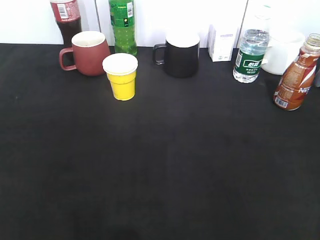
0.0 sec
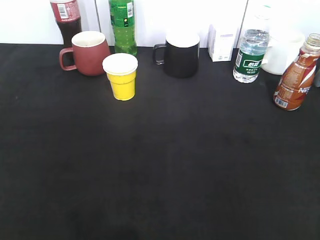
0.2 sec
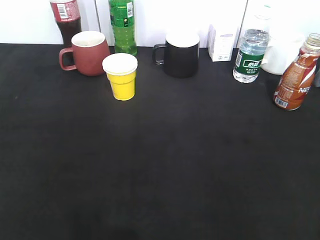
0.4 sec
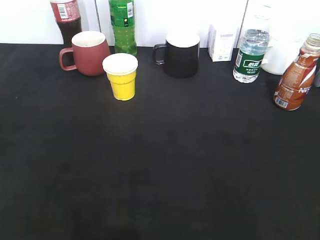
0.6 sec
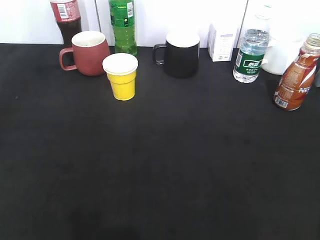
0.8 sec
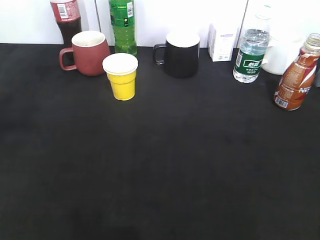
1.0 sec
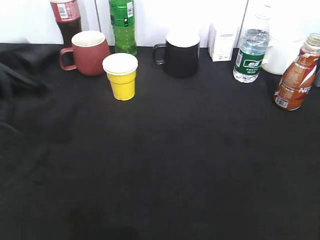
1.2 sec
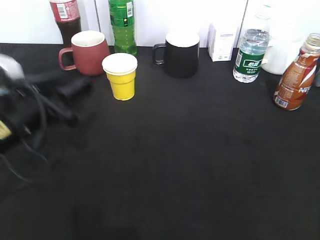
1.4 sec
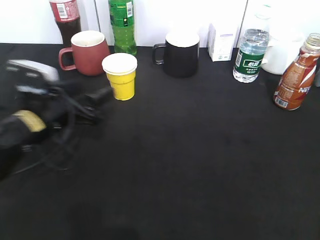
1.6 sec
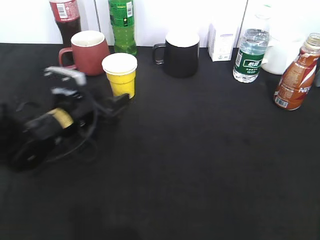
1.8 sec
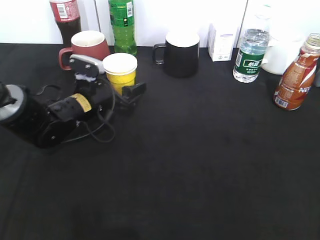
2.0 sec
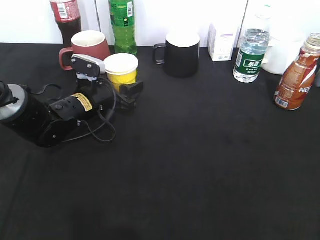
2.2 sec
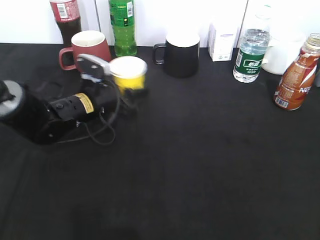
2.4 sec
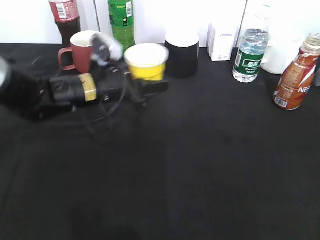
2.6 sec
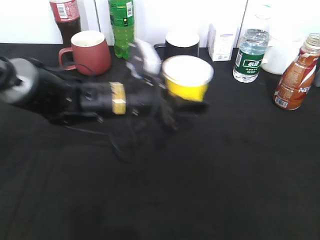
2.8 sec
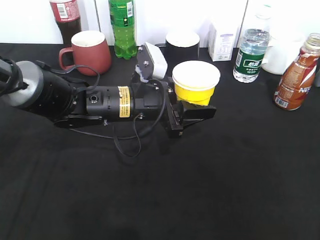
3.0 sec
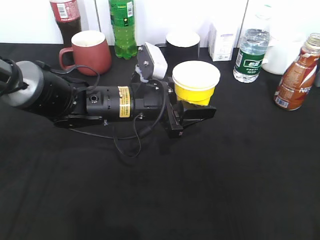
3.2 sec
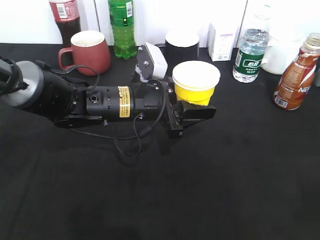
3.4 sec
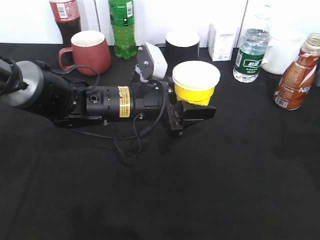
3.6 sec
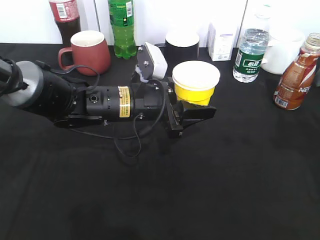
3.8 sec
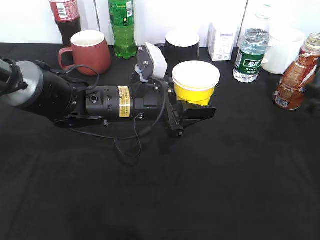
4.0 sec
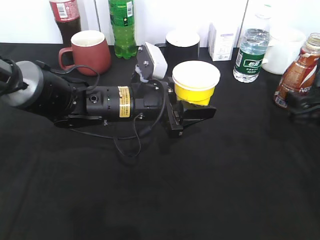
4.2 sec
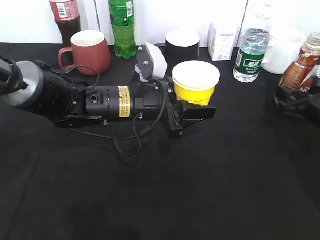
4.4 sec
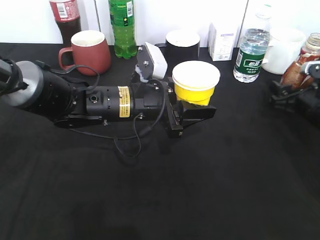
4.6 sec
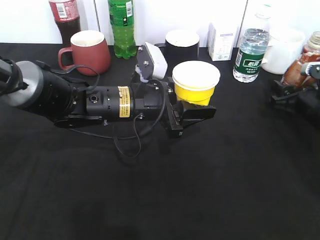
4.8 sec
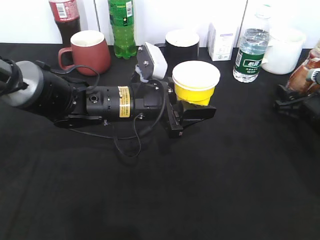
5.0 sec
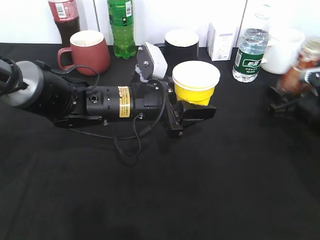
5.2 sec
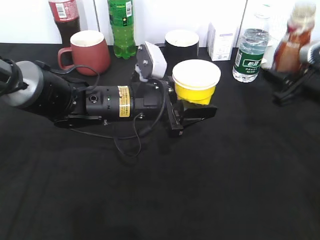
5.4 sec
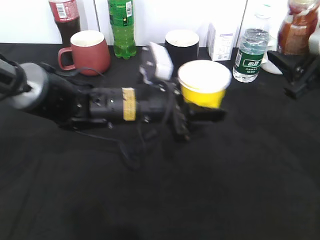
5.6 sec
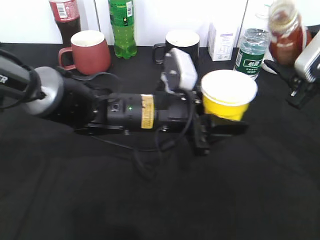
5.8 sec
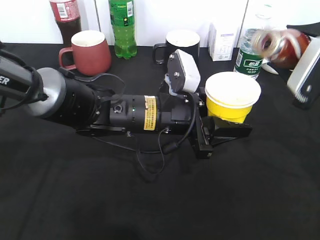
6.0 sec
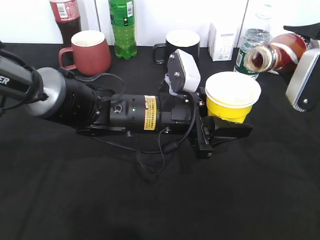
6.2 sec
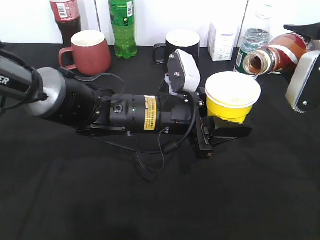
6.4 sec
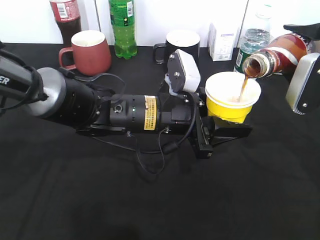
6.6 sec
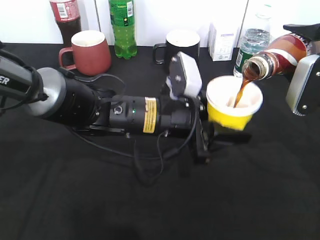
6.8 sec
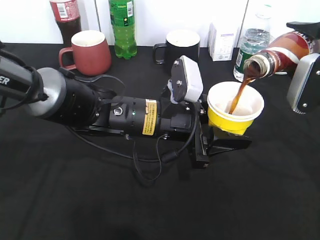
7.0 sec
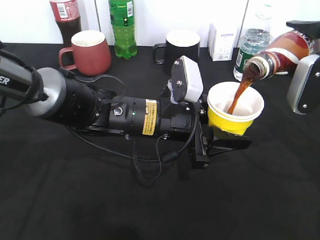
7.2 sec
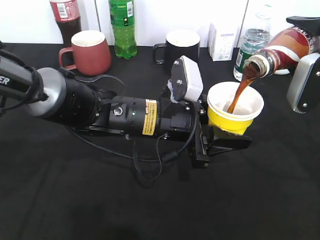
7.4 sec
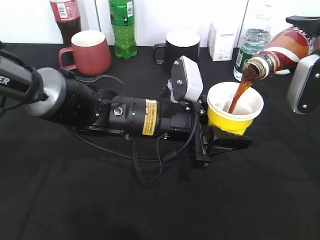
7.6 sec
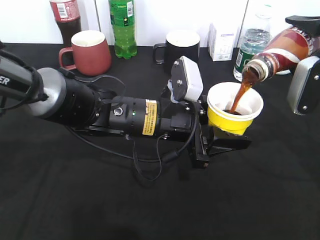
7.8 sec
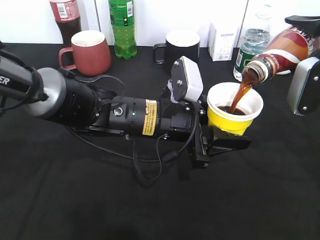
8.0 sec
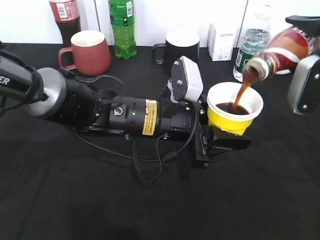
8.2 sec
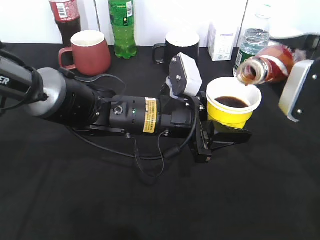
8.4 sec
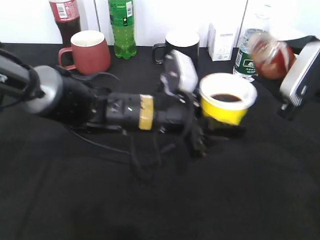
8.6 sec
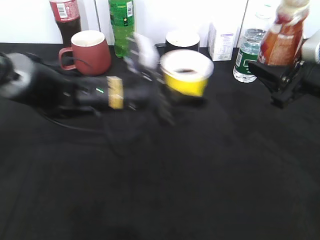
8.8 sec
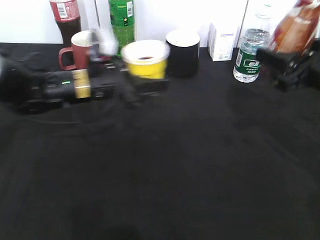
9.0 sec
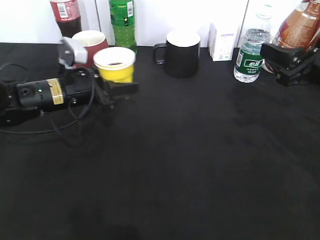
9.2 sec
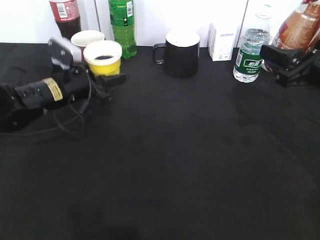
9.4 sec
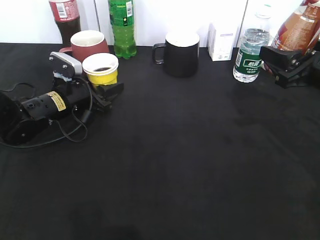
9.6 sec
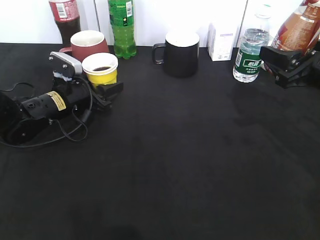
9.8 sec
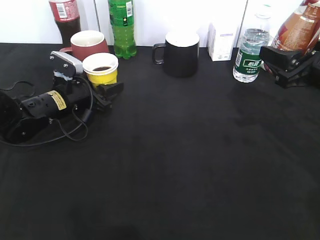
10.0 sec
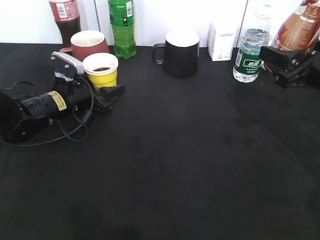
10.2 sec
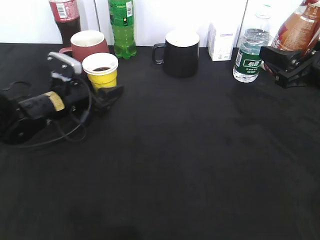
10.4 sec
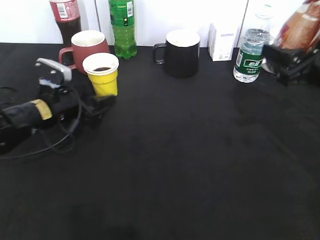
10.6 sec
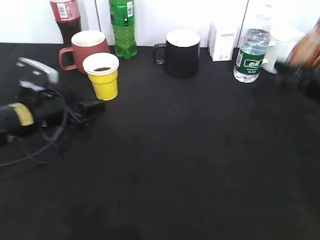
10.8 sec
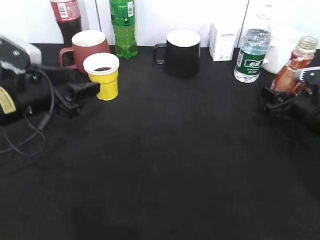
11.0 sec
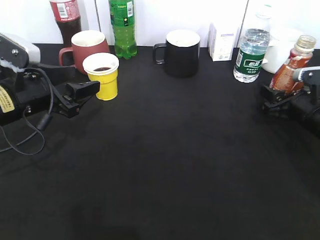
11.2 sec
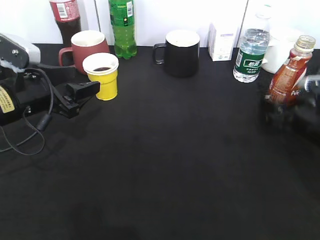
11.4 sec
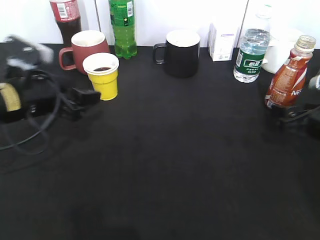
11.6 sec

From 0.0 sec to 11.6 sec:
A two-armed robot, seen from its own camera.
Step, from 1.2 sec to 2.2 sec: Grasp the yellow paper cup with left gripper.
Step, from 2.4 sec to 3.6 sec: Lift the yellow paper cup with left gripper.
Step, from 4.8 sec to 8.4 sec: Pour the coffee from bottle to cup with right gripper.
Step, from 8.6 sec to 10.0 sec: Place the yellow paper cup on the table with left gripper.
Step, from 10.4 sec to 11.2 sec: Place the coffee bottle on the table with right gripper.
From 0.0 sec to 1.4 sec: The left gripper travels forward, downward and to the right by approximately 30 cm, and opens up.
From 1.4 sec to 2.8 sec: The left gripper shifts roughly 15 cm to the right and forward, and opens, then closes once more.
From 2.8 sec to 4.4 sec: The right gripper shifts approximately 35 cm forward and downward, and opens its fingers.
From 4.4 sec to 5.8 sec: The left gripper changes place by roughly 5 cm, while the right gripper is displaced upward by roughly 10 cm, and closes its fingers.
From 7.2 sec to 8.8 sec: The left gripper goes approximately 10 cm forward and to the left.
From 8.8 sec to 10.2 sec: The left gripper heads to the left, downward and forward, covering about 15 cm.
From 10.2 sec to 11.6 sec: The right gripper is displaced downward by some 10 cm, and opens its fingers. Meanwhile the left gripper is displaced backward and upward by roughly 15 cm.

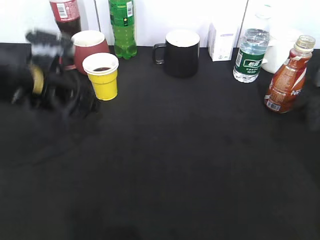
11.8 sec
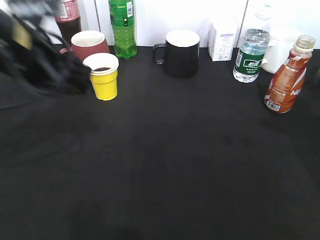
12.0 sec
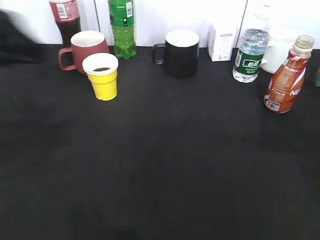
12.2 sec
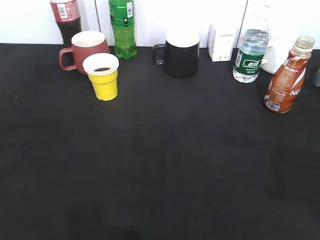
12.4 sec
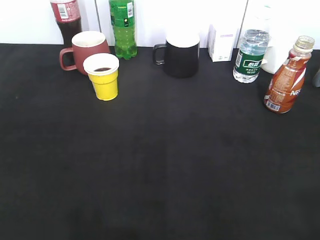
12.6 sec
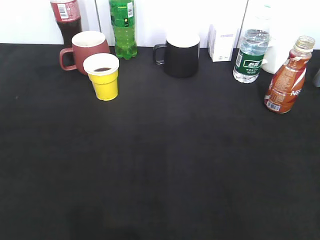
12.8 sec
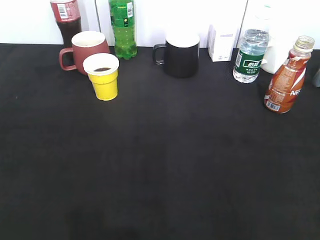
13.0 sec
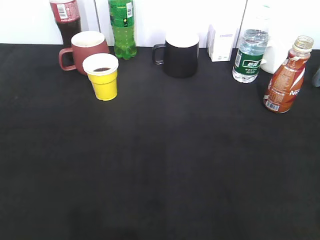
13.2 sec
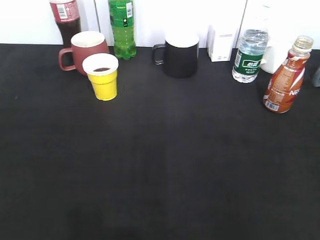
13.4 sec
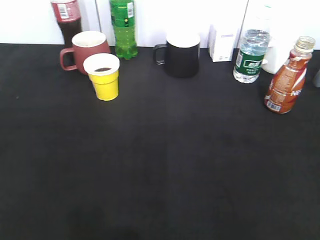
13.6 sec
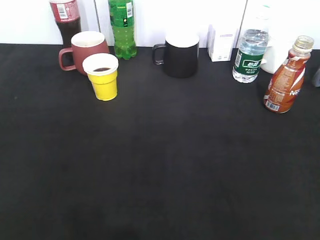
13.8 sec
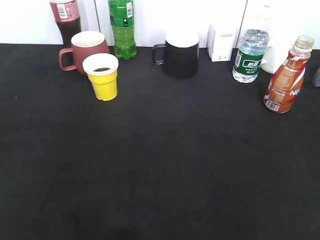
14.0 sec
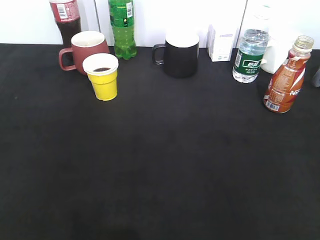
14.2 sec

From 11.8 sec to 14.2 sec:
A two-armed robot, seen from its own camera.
From 11.8 sec to 13.0 sec: The right gripper goes roughly 25 cm backward; the left gripper travels backward and to the left by about 30 cm.

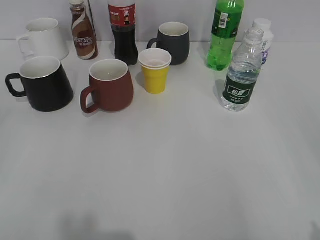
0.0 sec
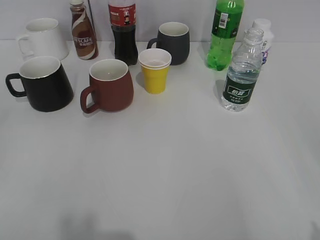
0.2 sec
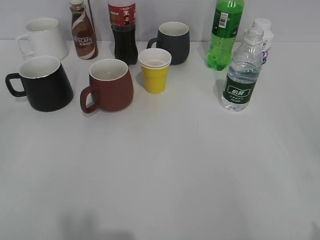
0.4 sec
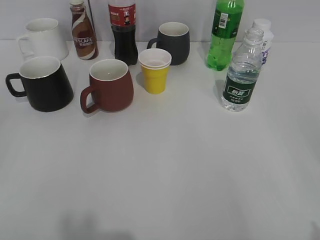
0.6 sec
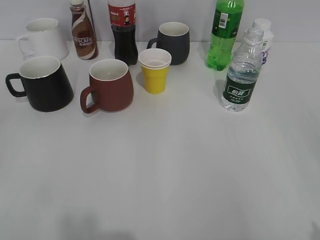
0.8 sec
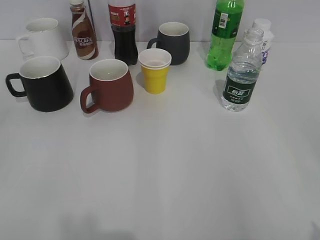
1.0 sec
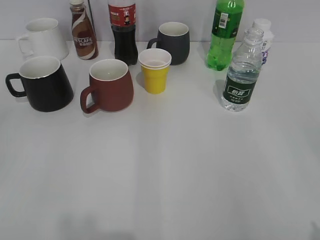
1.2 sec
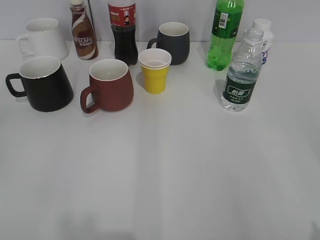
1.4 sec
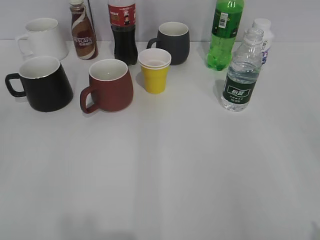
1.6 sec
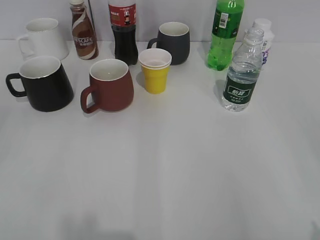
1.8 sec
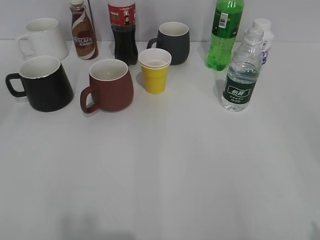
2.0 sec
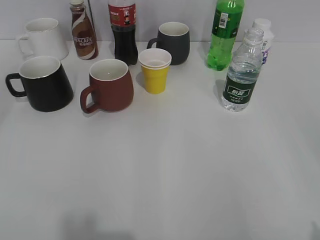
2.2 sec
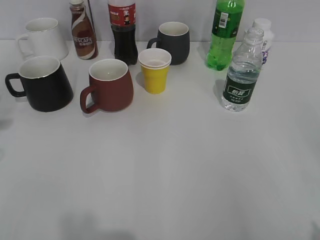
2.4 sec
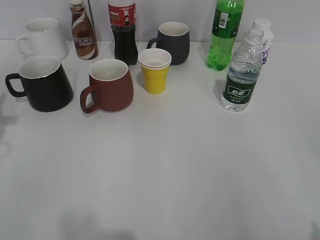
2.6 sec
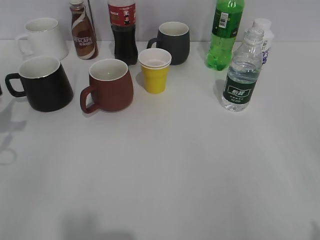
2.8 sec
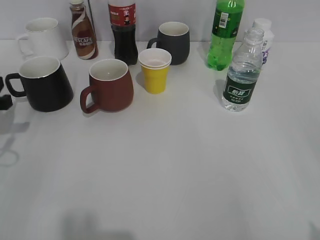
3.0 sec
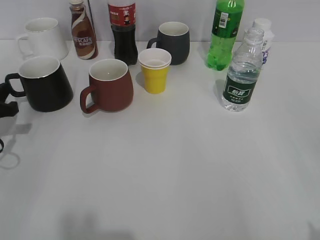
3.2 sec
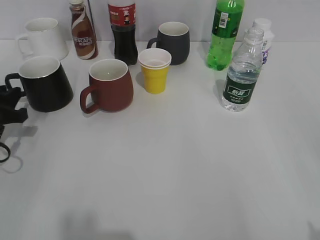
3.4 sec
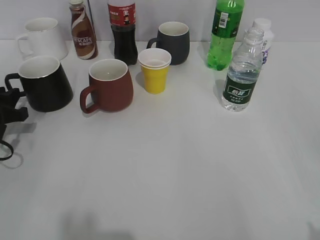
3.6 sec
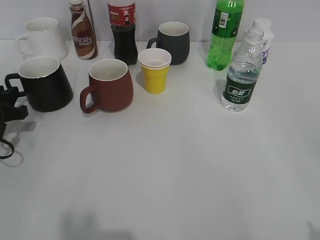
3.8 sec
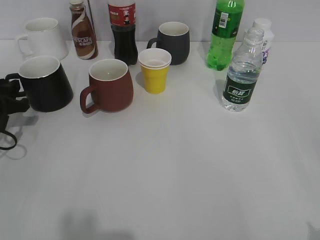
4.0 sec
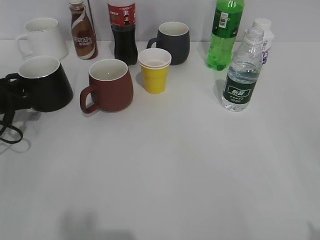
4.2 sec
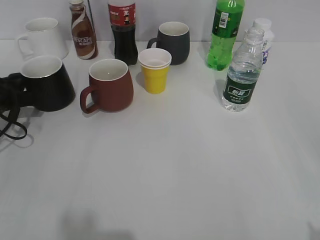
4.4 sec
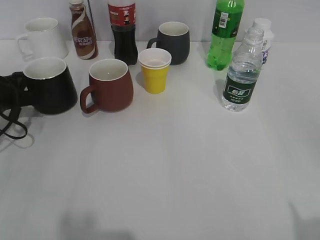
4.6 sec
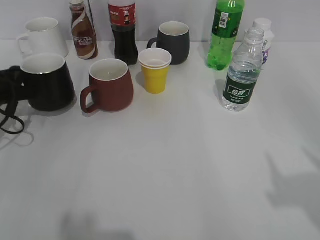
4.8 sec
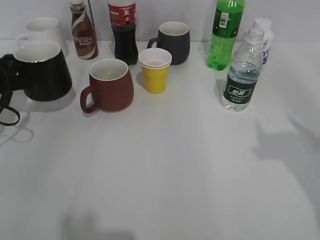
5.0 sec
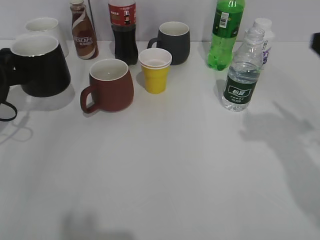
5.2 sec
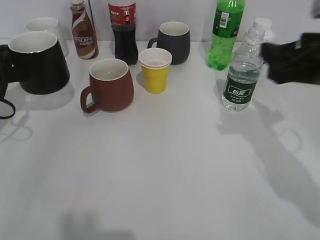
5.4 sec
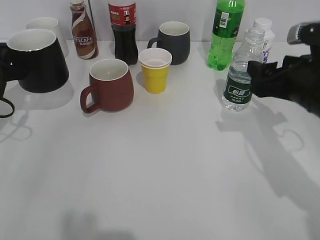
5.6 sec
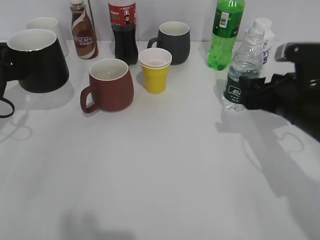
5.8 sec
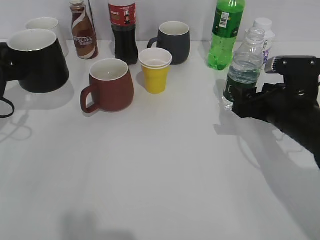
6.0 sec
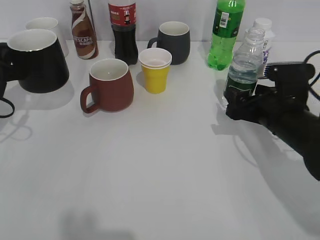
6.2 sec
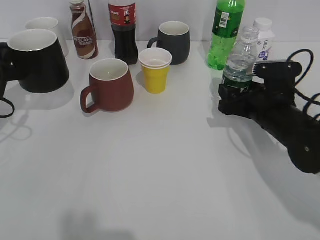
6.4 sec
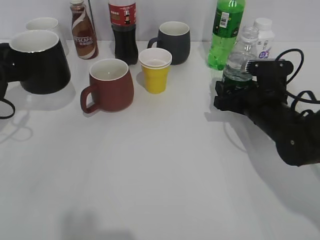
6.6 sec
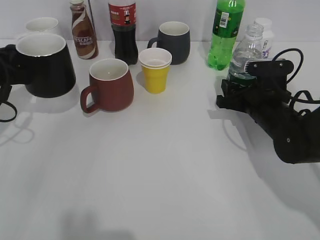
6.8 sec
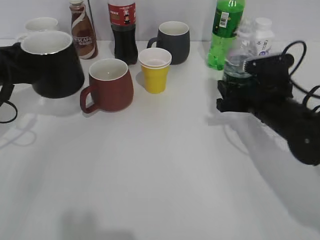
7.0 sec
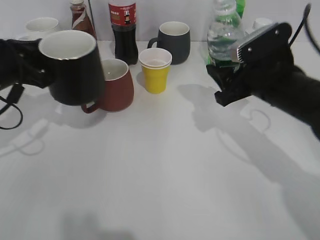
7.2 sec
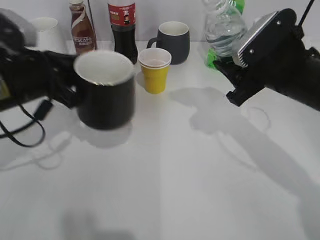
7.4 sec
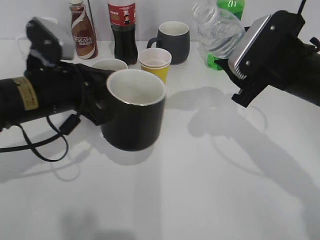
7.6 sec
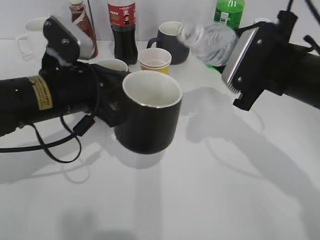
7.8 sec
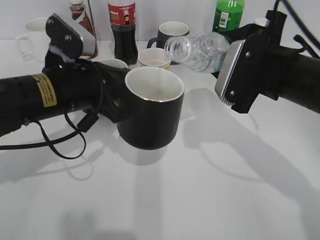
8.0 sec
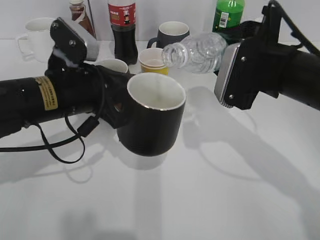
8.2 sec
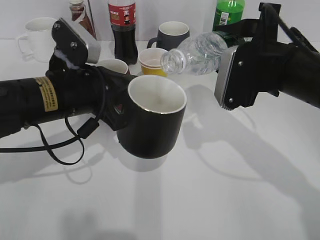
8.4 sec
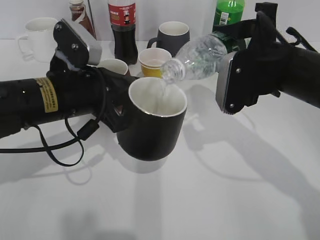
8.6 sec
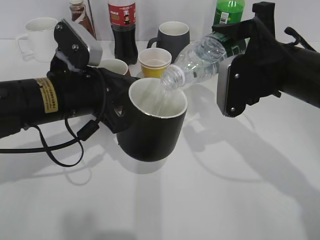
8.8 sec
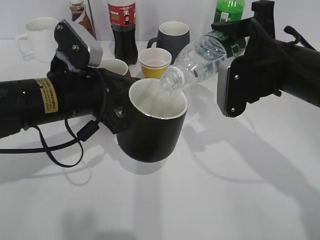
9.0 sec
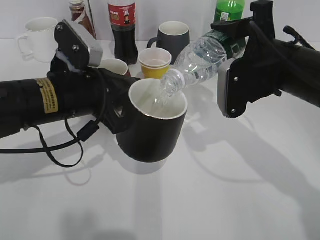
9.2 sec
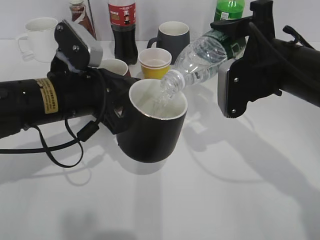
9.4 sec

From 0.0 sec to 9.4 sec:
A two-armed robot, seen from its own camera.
Step, from 1.6 sec to 4.4 sec: Grasp the black cup with left gripper.
Step, from 4.6 sec to 5.0 sec: Lift the black cup with left gripper.
Step, from 5.2 sec to 6.8 sec: Grasp the bottle with water with right gripper.
From 1.6 sec to 3.2 sec: The left gripper travels forward and downward by some 30 cm.
From 3.2 sec to 4.8 sec: The left gripper heads forward, covering some 5 cm, and closes up.
From 4.8 sec to 6.2 sec: The right gripper goes some 30 cm forward and downward.
From 6.2 sec to 7.8 sec: The left gripper travels to the right by roughly 15 cm. The right gripper travels upward by some 10 cm, and closes.
